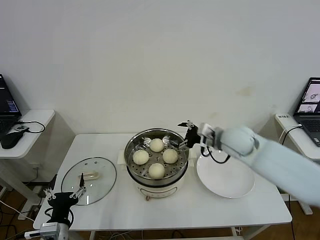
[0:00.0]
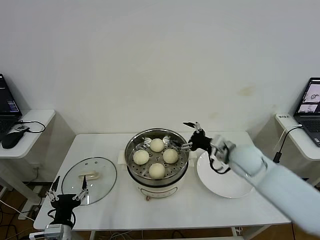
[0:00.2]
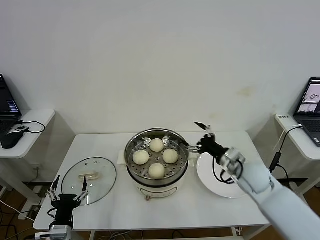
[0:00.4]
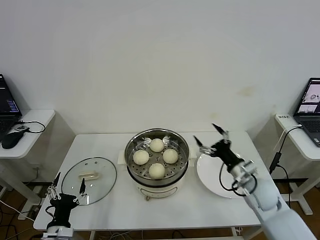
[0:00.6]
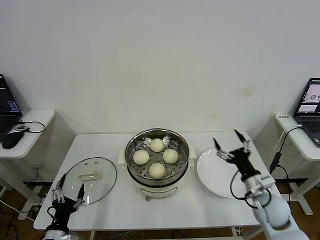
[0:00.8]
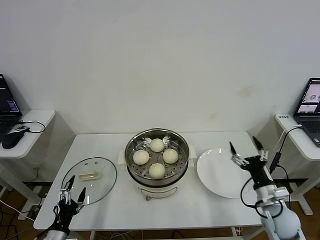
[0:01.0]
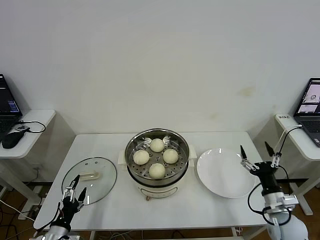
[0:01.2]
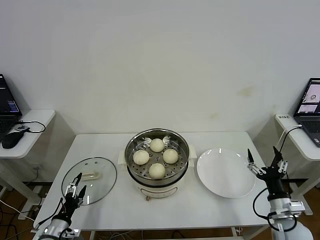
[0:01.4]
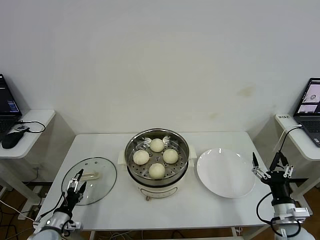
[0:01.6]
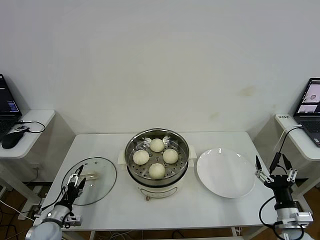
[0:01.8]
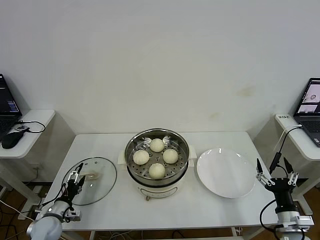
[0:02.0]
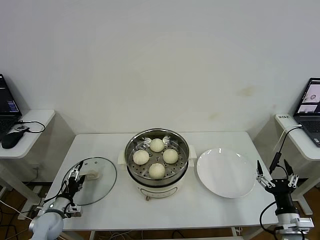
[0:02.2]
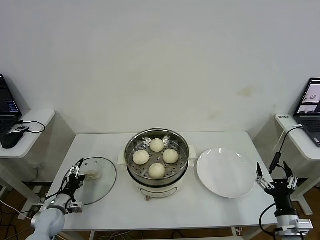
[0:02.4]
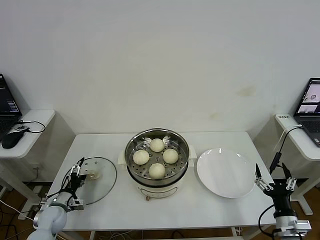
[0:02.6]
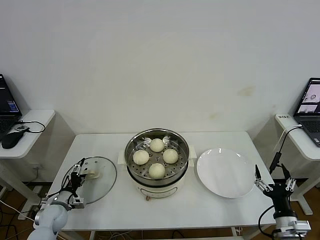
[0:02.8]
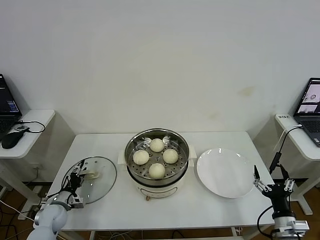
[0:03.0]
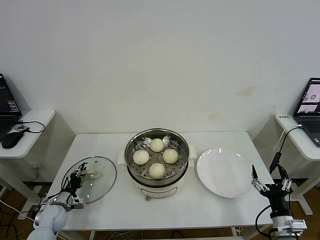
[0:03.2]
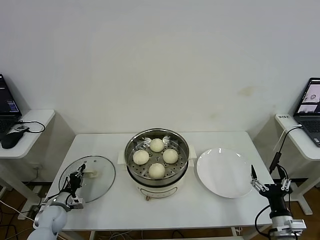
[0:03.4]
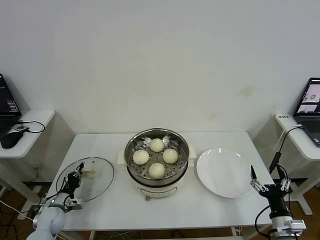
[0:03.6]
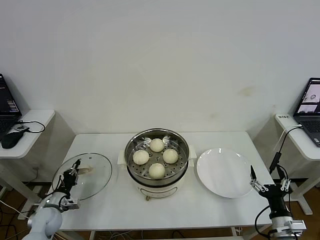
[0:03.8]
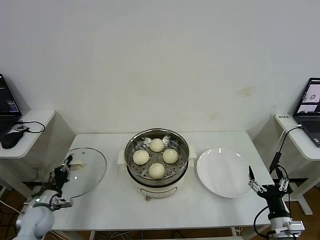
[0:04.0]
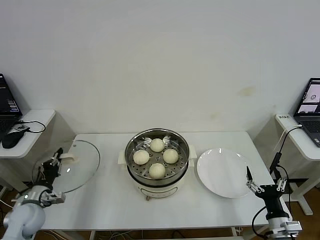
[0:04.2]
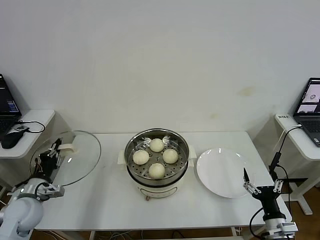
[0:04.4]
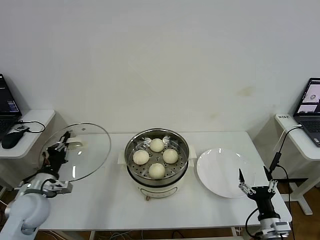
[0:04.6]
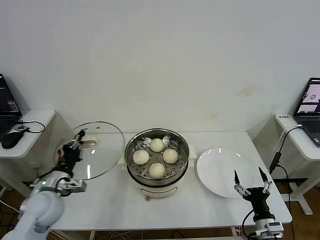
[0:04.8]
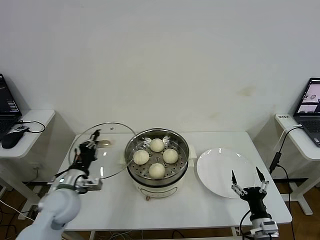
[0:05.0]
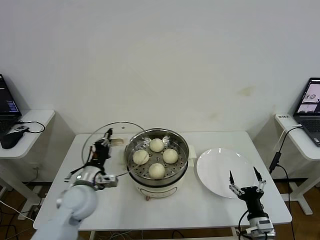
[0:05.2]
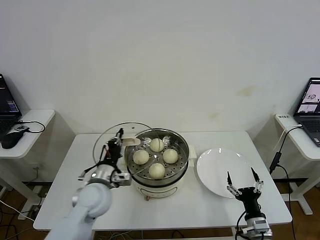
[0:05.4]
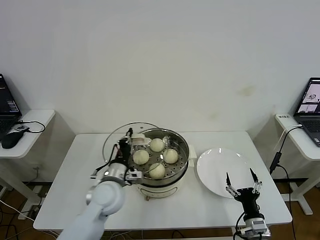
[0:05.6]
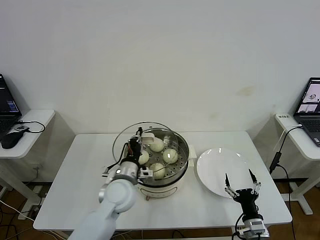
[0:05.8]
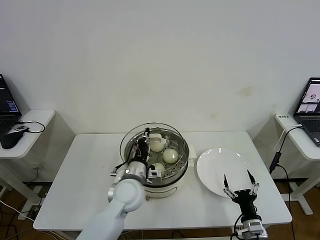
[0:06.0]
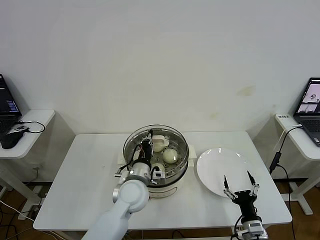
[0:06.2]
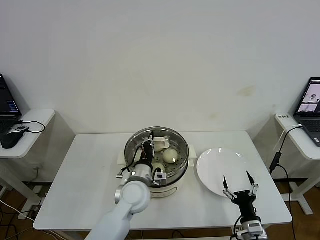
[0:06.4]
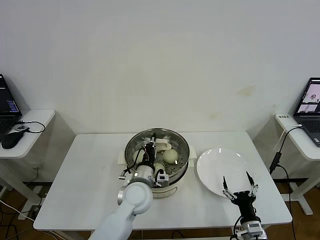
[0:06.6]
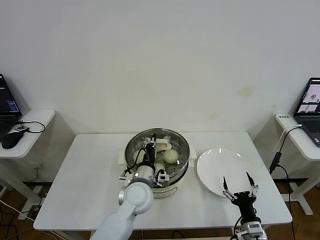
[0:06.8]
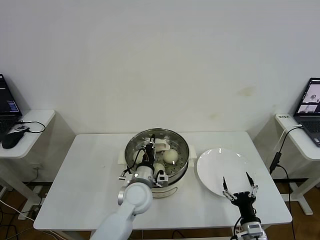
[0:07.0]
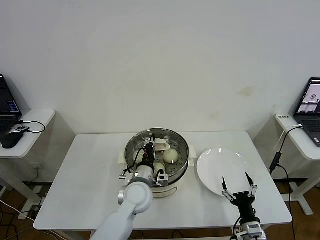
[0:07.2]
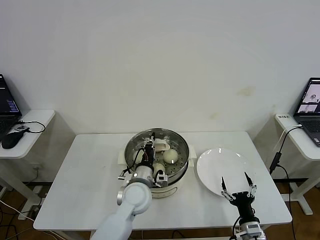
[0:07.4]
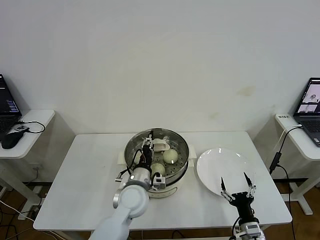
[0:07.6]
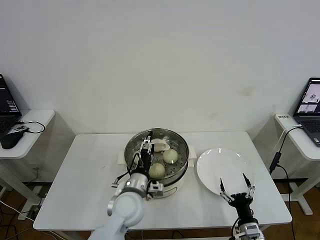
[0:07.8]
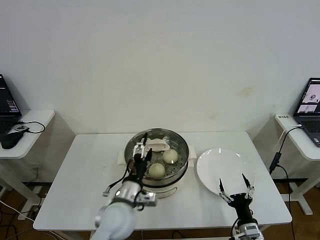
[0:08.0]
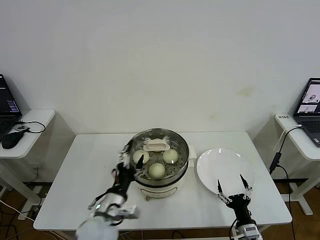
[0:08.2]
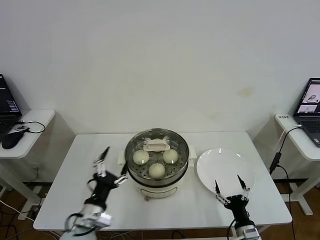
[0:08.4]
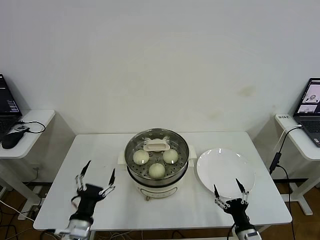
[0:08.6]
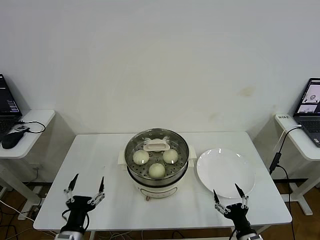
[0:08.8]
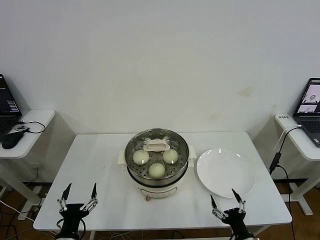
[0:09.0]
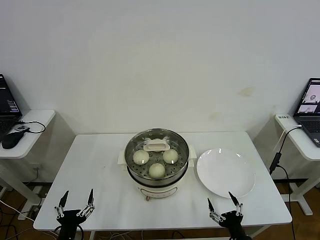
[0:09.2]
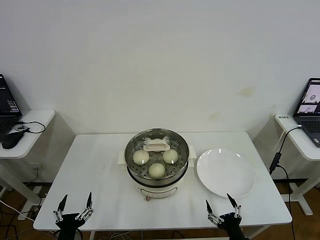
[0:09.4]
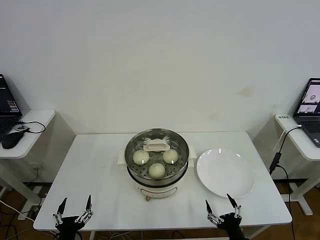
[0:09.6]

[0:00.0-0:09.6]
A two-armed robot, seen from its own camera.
Step, 0:00.0 to 0:03.4: Grasp the pot lid with left gripper.
Step, 0:03.8 to 0:07.6: Place the pot lid on the steamer with left gripper.
0:00.0 to 0:01.6: The left gripper shifts about 15 cm downward, to the left and forward. Meanwhile the right gripper heads backward, downward and to the right, covering roughly 35 cm.
0:01.6 to 0:03.2: The left gripper travels forward by some 10 cm, and closes up.
0:03.2 to 0:04.8: The left gripper travels upward by approximately 20 cm, and closes up.
0:04.8 to 0:06.4: The left gripper is displaced to the right by about 25 cm.
0:06.4 to 0:08.0: The left gripper travels backward by roughly 5 cm, and opens up.
0:08.0 to 0:09.6: The left gripper moves to the left, backward and downward, roughly 30 cm. Meanwhile the right gripper heads backward, covering roughly 5 cm.
